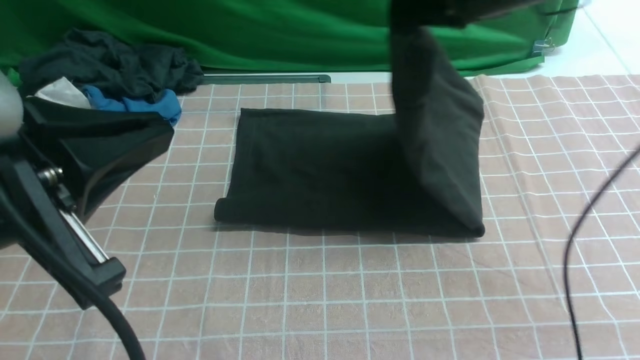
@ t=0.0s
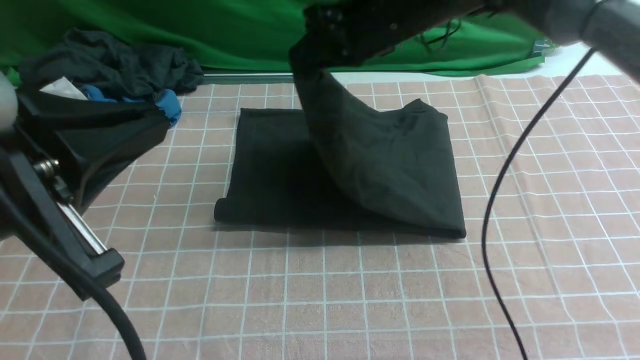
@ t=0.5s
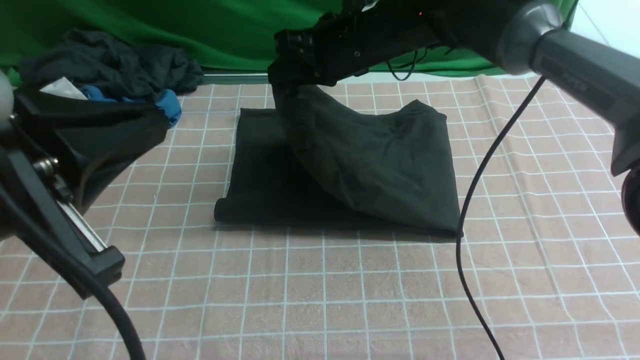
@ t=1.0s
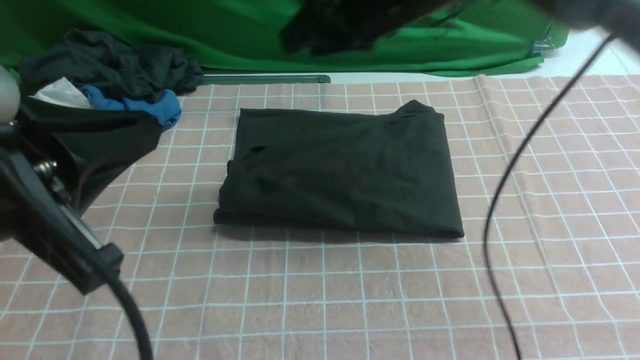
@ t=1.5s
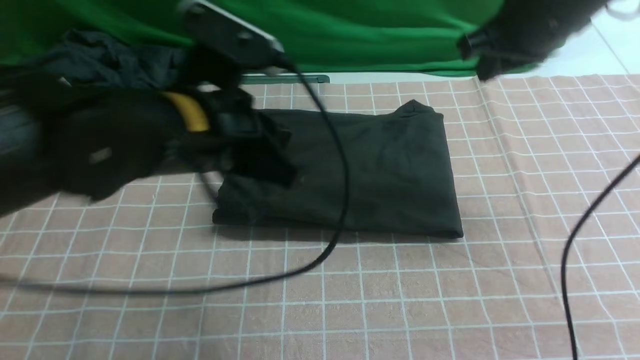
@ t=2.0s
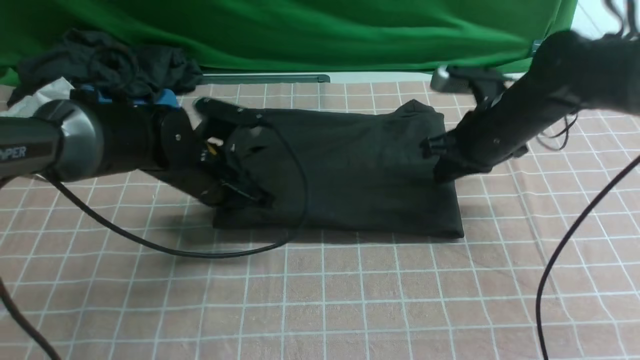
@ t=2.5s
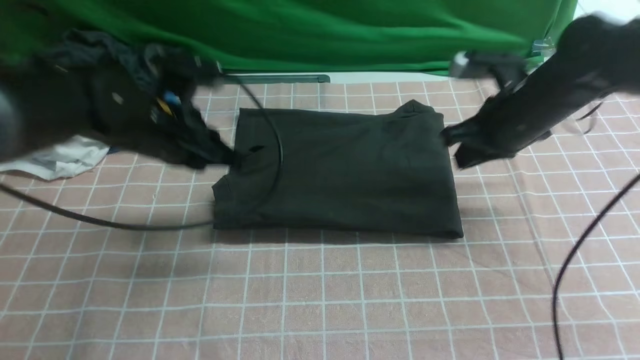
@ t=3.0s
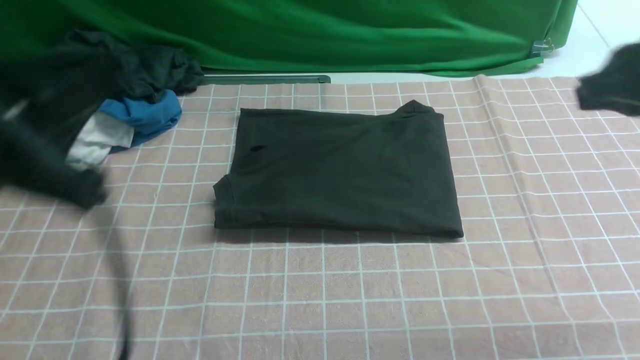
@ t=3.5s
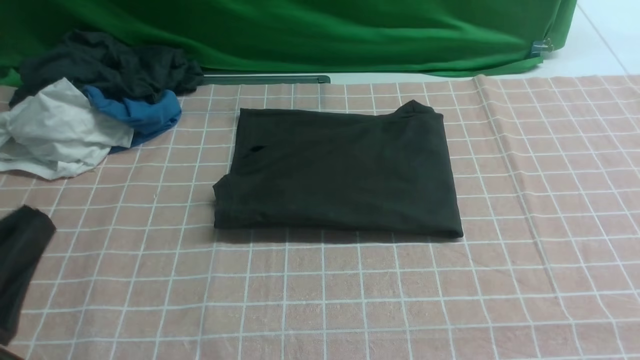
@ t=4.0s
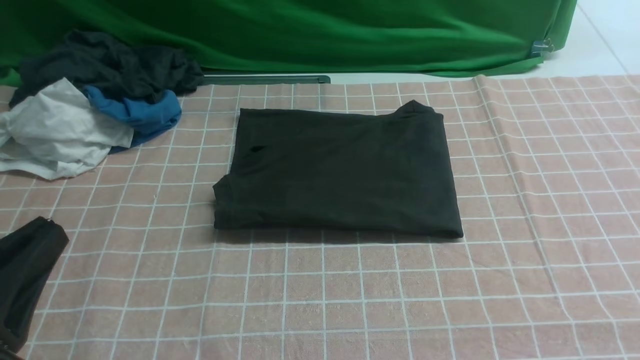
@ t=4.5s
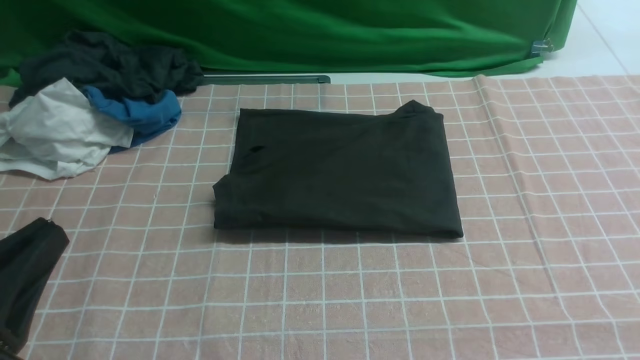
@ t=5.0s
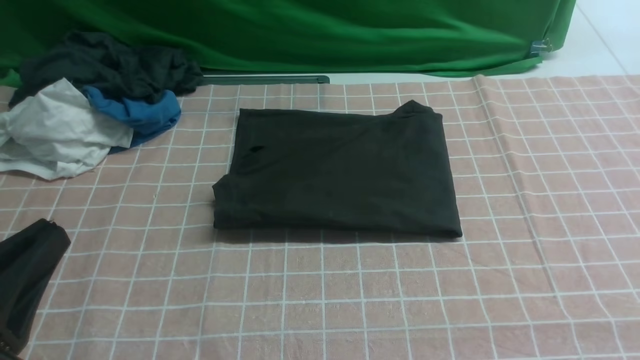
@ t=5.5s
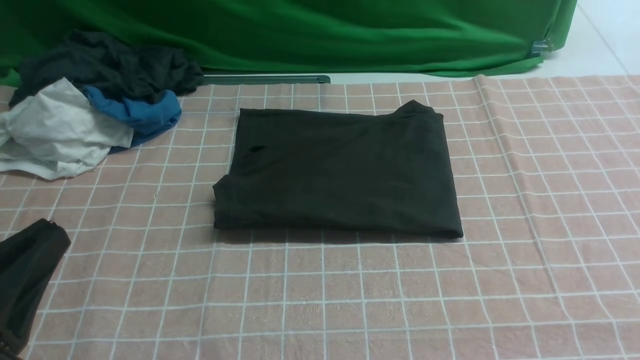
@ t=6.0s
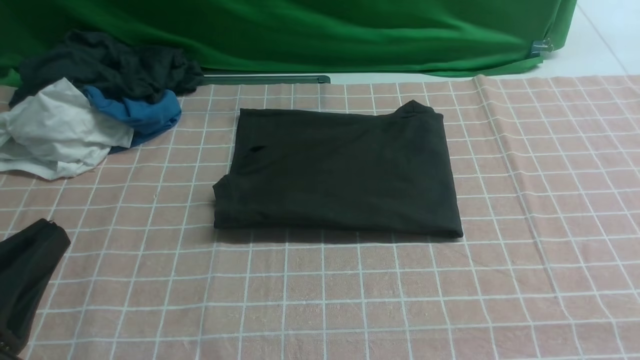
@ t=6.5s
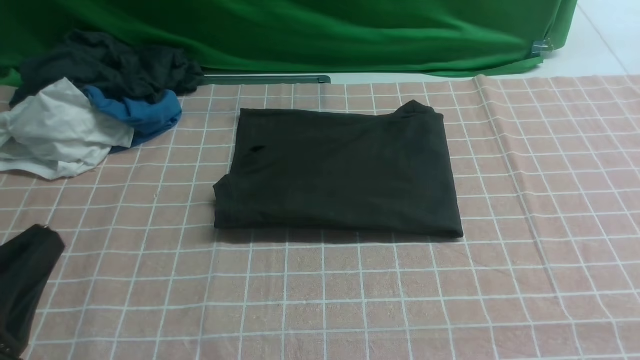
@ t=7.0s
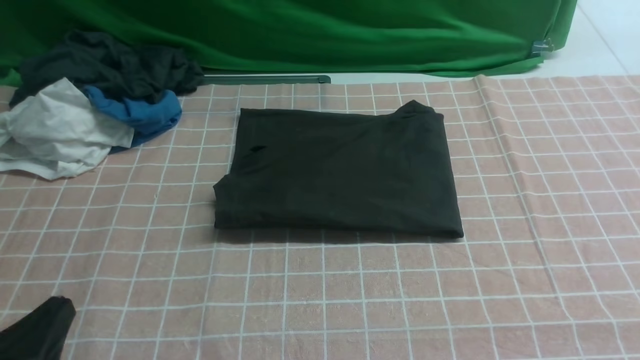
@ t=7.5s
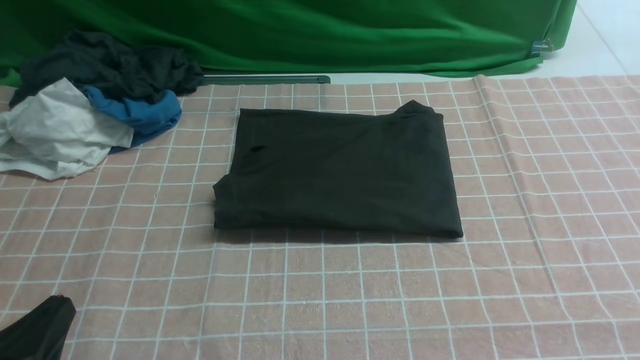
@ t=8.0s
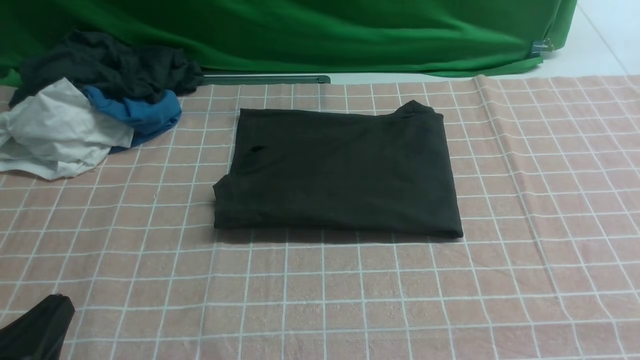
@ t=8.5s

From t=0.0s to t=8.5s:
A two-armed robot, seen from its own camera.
From t=0.0s to t=2.0s: The right gripper moves approximately 10 cm to the left and comes back, and opens, then closes once more. The left gripper shifts approximately 20 cm forward and downward.
From t=2.0s to t=4.0s: The right gripper travels backward by about 35 cm. Meanwhile the left gripper moves backward and to the left, roughly 25 cm.
From t=6.5s to t=8.5s: The left gripper goes approximately 10 cm downward.
